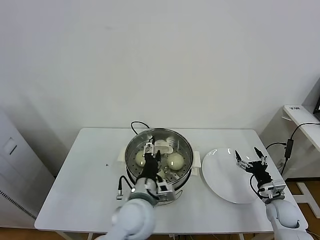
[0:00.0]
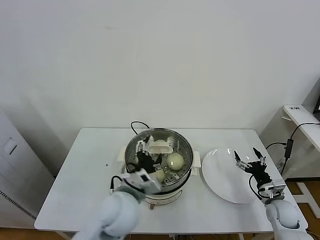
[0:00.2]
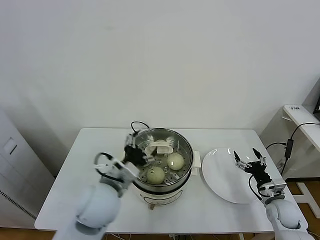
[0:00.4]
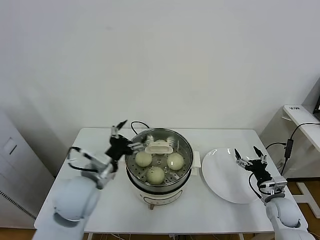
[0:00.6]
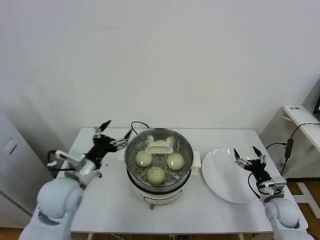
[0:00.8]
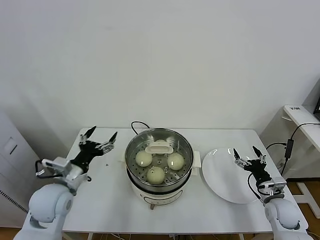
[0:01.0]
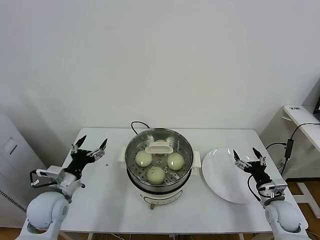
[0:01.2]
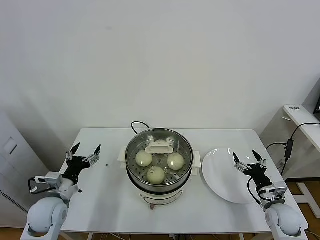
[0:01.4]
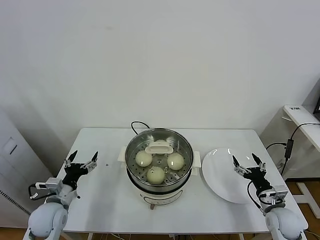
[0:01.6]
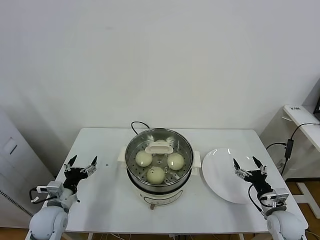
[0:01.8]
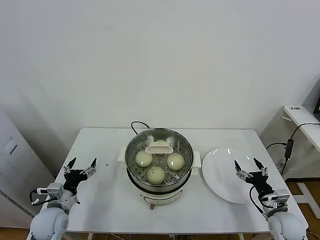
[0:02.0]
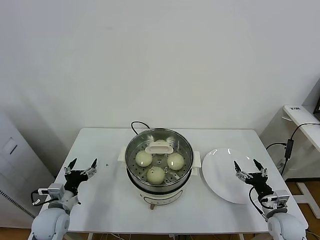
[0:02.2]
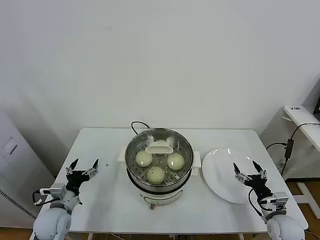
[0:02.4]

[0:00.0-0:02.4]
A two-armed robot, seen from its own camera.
Task of the whole recording: take steamed baozi put them in steamer.
0:00.0 to 0:01.2: The left gripper shifts approximately 25 cm to the left.
0:01.2 to 0:02.4: The left gripper shifts roughly 10 cm downward.
